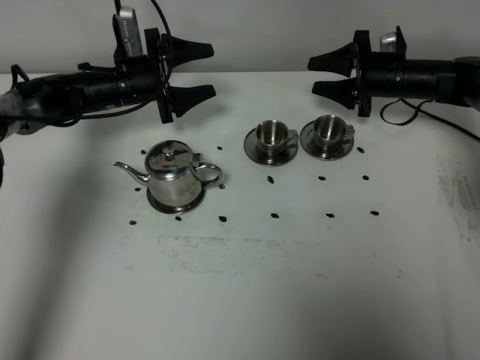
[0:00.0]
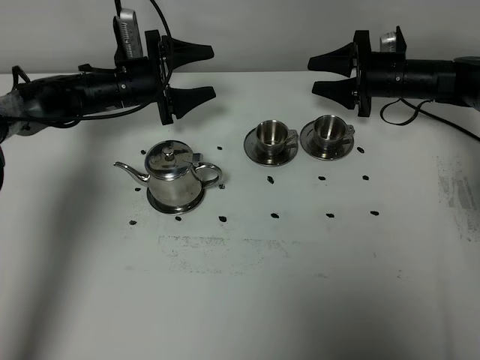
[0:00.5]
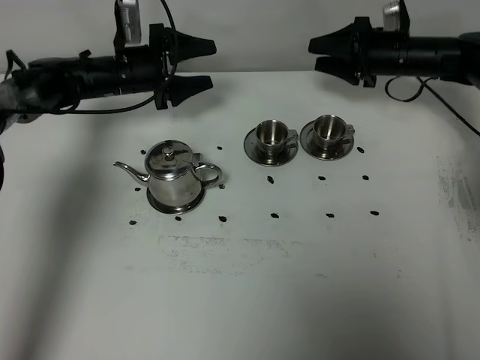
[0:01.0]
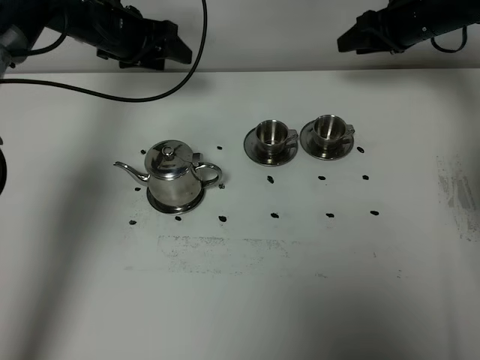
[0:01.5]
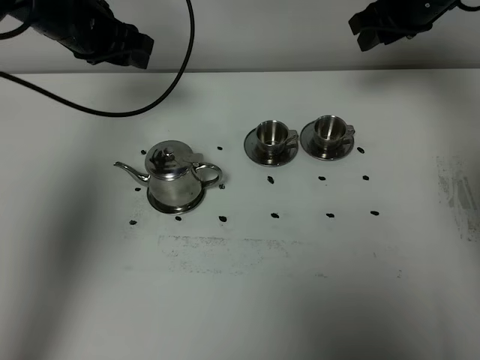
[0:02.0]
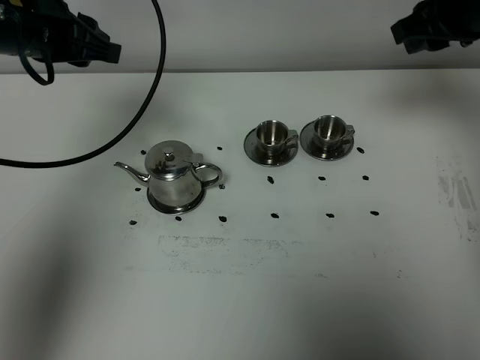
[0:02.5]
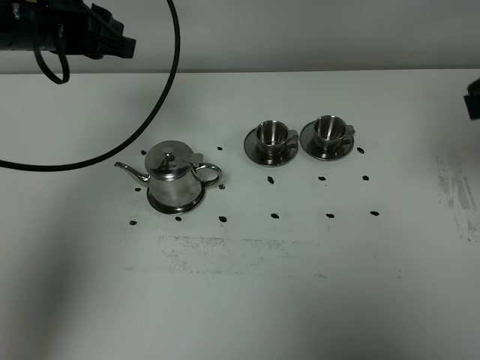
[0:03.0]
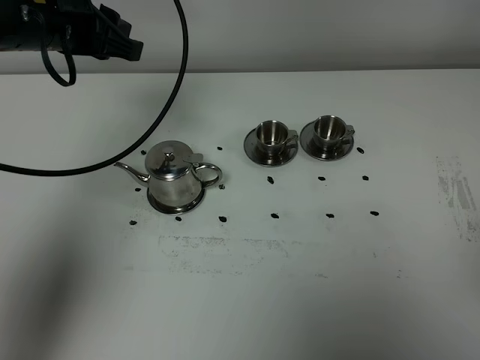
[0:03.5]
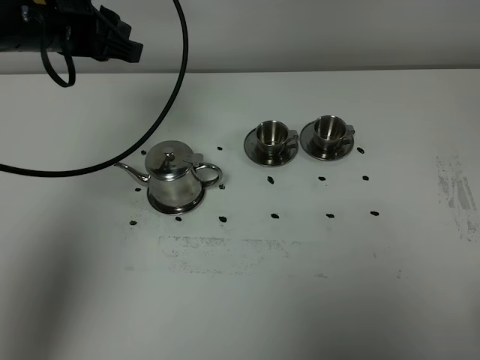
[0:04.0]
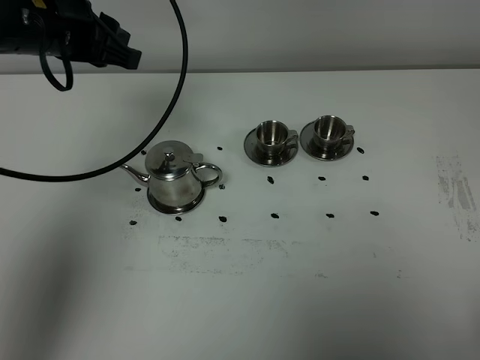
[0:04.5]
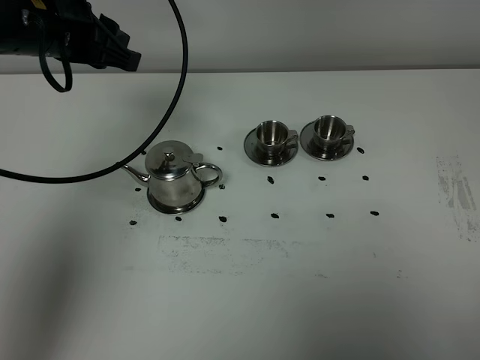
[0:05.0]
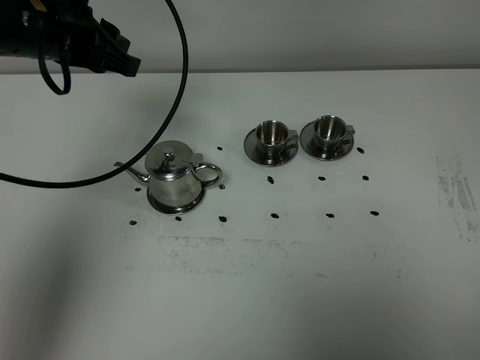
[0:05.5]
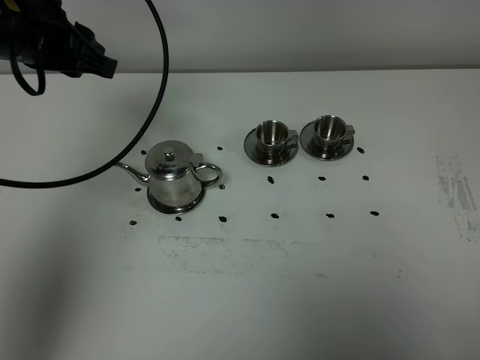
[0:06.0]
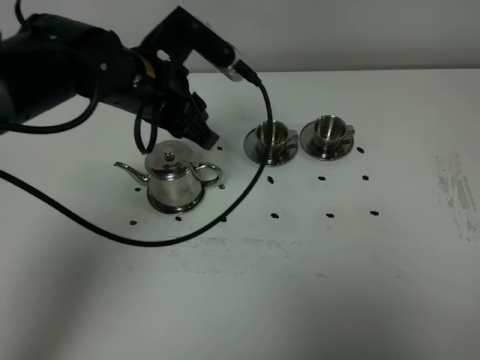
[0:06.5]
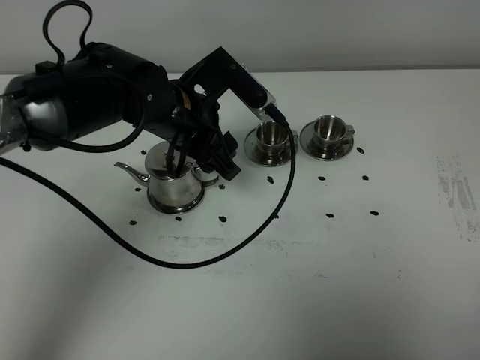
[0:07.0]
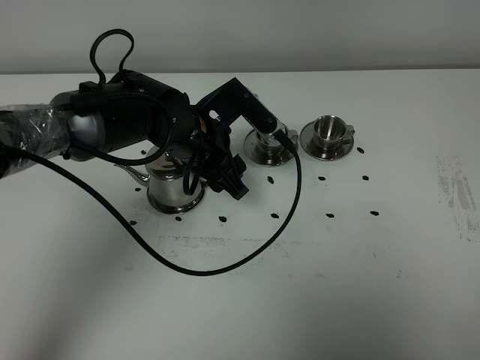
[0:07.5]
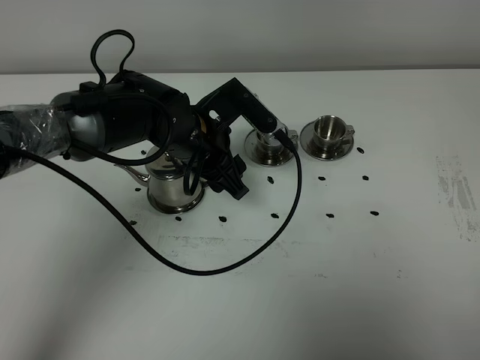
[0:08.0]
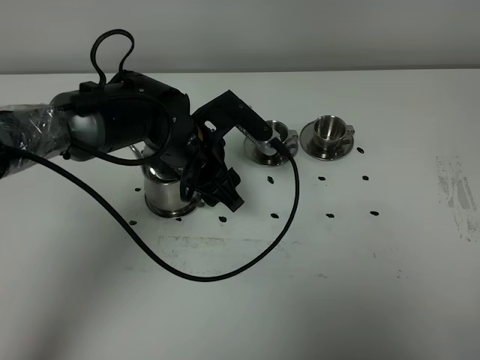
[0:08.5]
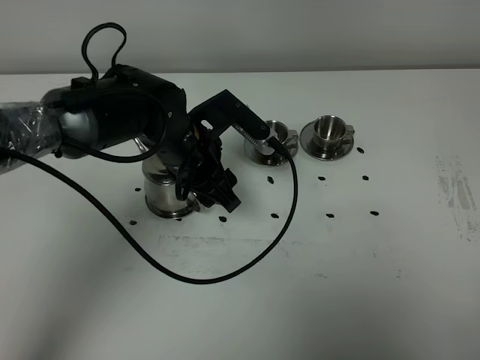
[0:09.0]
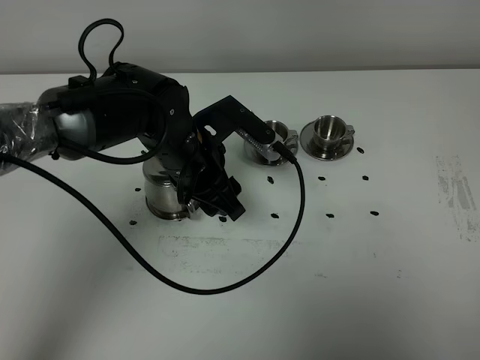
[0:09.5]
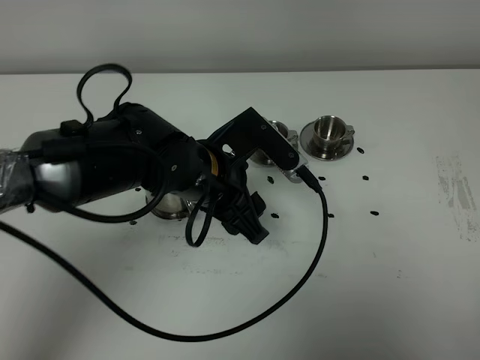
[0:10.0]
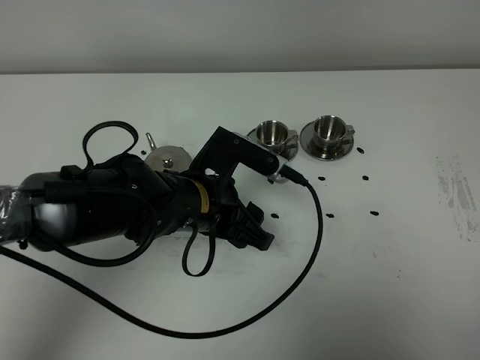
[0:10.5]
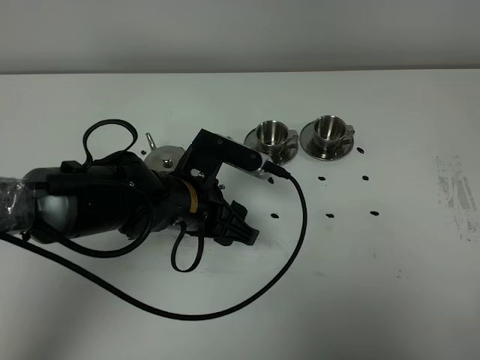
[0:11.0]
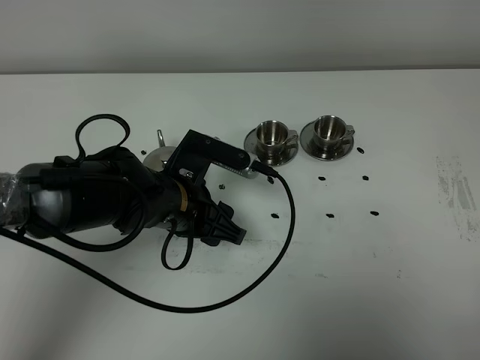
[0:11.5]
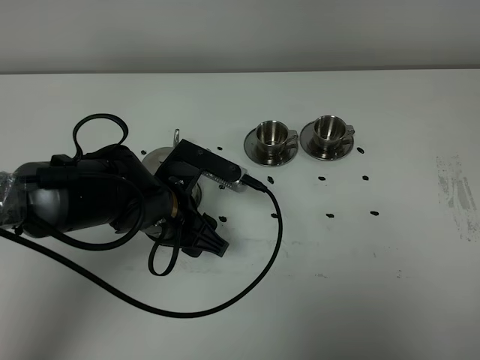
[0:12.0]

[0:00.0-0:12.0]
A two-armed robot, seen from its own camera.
Task of the whole recording: grasp the stainless steel teapot and pour the tea into the two stainless steel teacups one by one, put the stainless steel teapot back in its original place.
0:00.0 to 0:02.0: Both grippers travel together upward, approximately 15 cm. The left gripper closes up. The right gripper closes up.
0:02.0 to 0:04.0: The left gripper is displaced backward and upward by about 10 cm. Meanwhile the right gripper heads backward, covering about 50 cm.
0:04.0 to 0:06.0: The grippers stay close to where they were, moving slightly.
0:06.0 to 0:08.0: The left gripper moves downward and to the right, approximately 20 cm, and opens up.
0:08.0 to 0:10.0: The left gripper shifts approximately 10 cm backward.
0:10.0 to 0:12.0: The left gripper heads downward, covering roughly 5 cm.

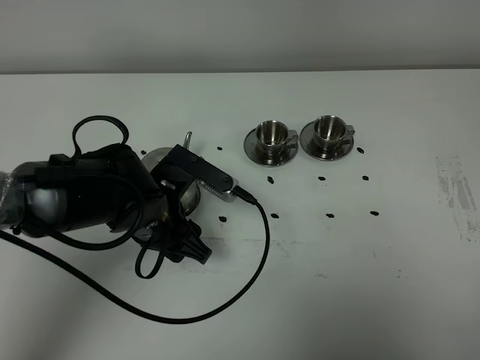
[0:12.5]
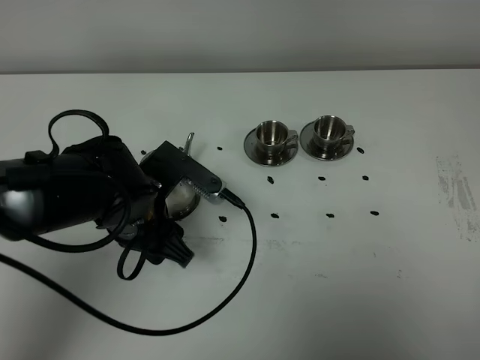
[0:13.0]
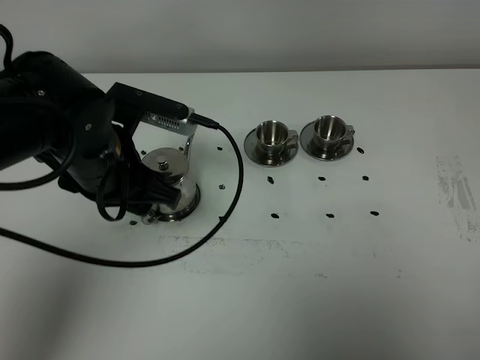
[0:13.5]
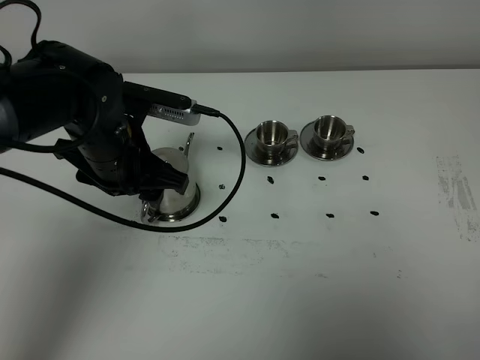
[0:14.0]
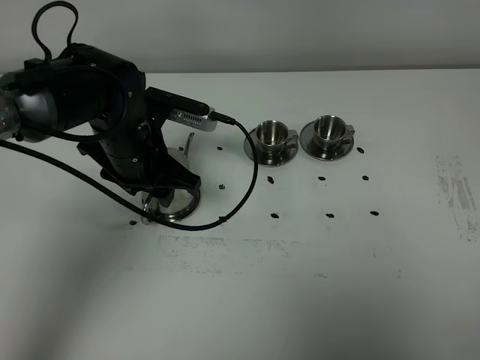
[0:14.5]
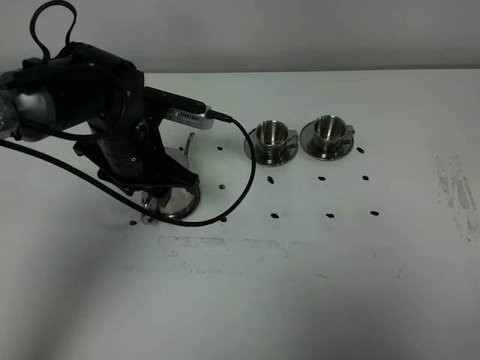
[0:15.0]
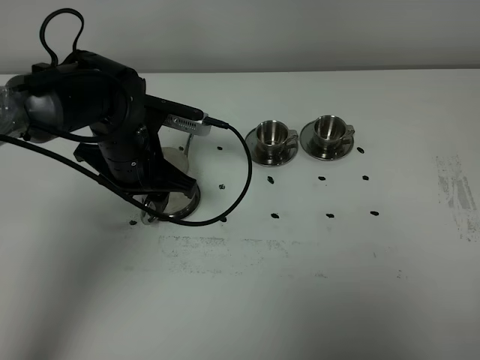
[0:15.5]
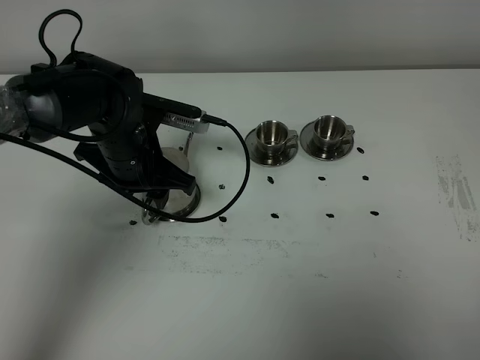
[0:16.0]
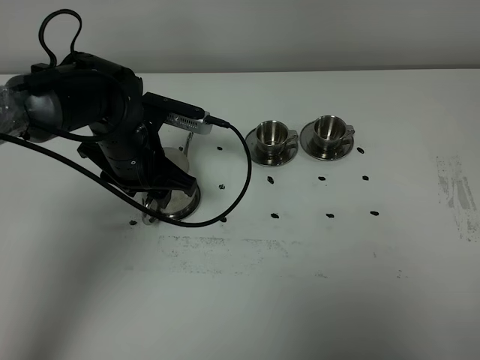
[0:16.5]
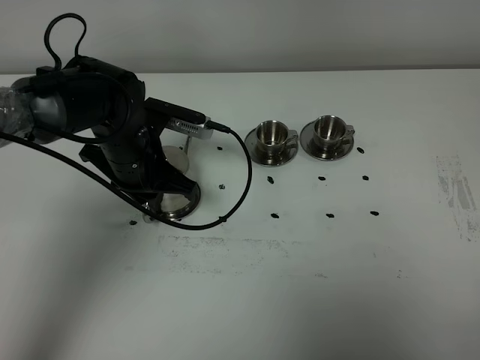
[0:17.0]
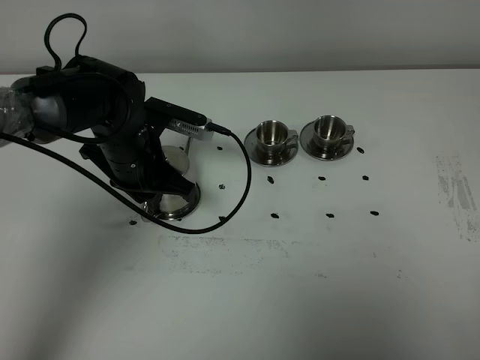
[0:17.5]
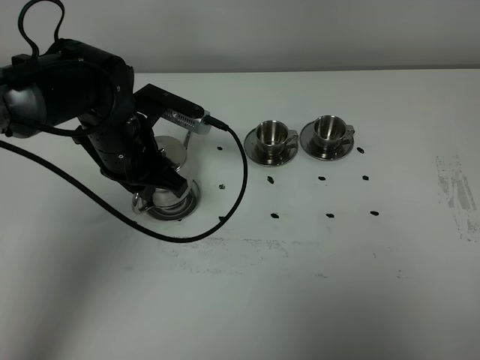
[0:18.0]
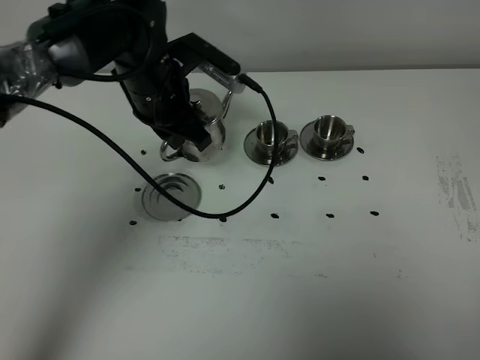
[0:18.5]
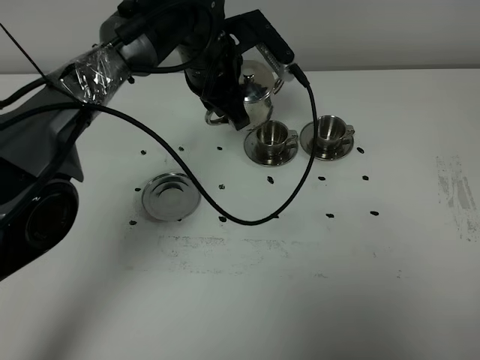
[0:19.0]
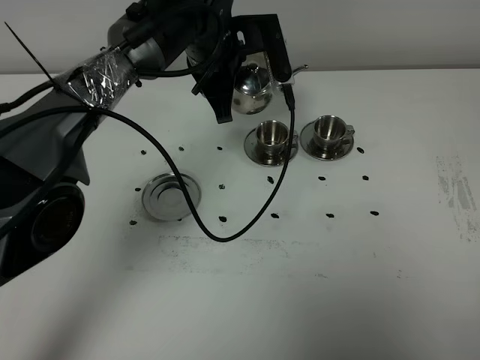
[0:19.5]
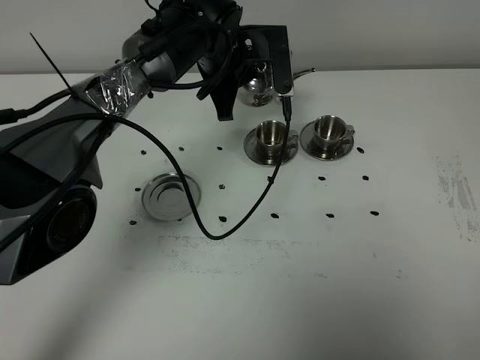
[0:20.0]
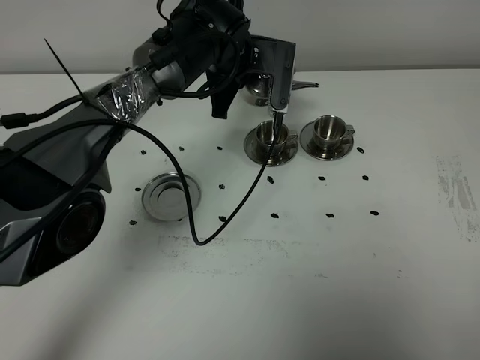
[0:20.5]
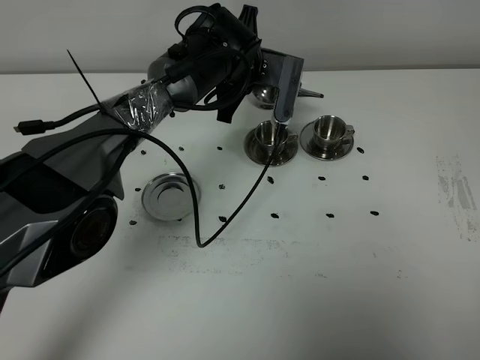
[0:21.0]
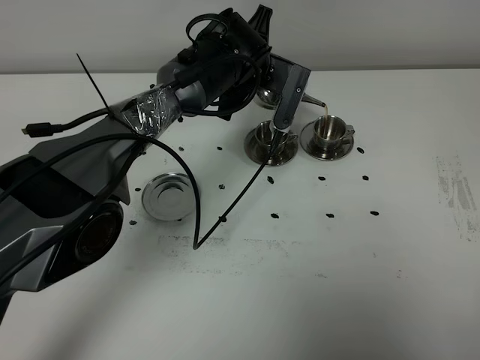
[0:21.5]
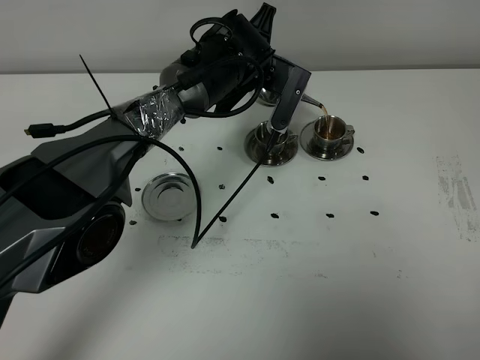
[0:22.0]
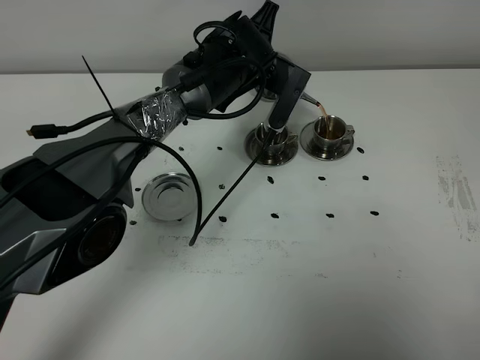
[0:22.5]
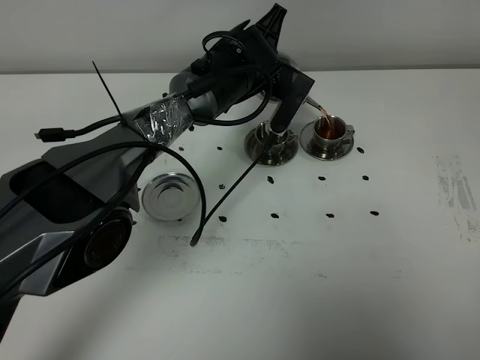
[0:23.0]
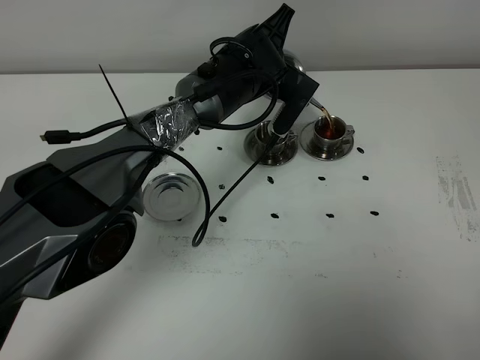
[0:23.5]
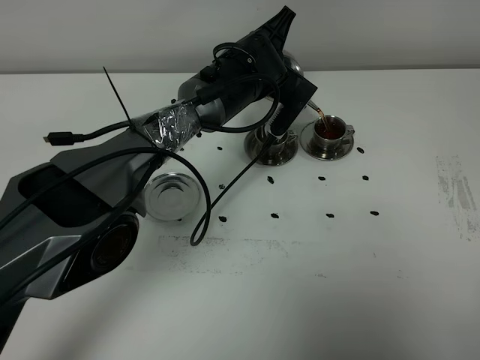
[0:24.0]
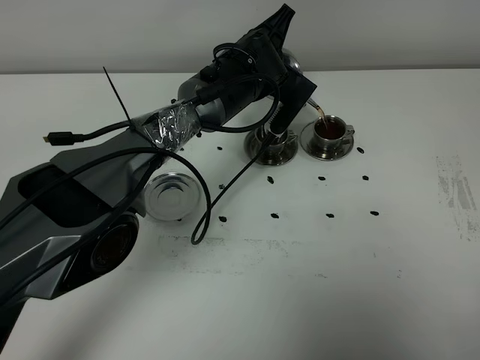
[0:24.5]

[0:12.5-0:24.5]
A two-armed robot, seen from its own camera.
Task of the whole recording: grasp the stainless steel teapot and pour the tea into the two stainless steel teacups one by one, put the stainless steel teapot back in its original place.
Step, 0:12.5 to 0:18.0: Pick up the teapot with the left gripper.
0:12.5 to 0:14.5: The left gripper moves forward, approximately 10 cm.
0:14.5 to 0:16.5: There are only small adjustments of the grippers.
0:16.5 to 0:18.5: The left gripper heads upward and forward, covering approximately 10 cm, and closes up.
0:18.5 to 0:20.5: The left gripper is displaced to the right and forward by about 10 cm.
0:22.5 to 0:24.5: The grippers make only small movements.

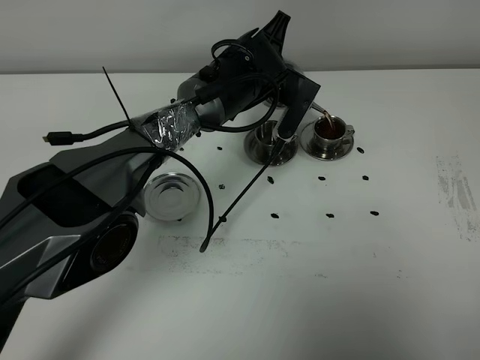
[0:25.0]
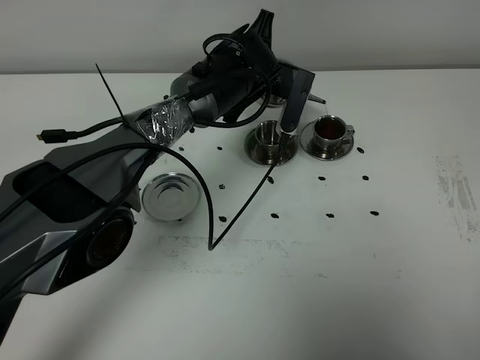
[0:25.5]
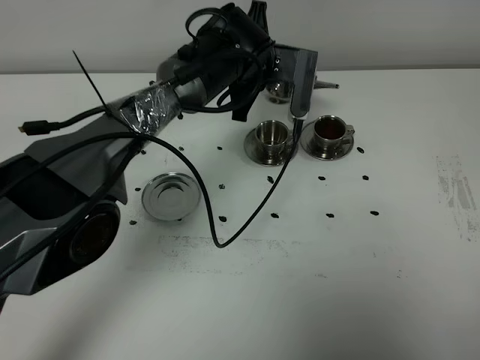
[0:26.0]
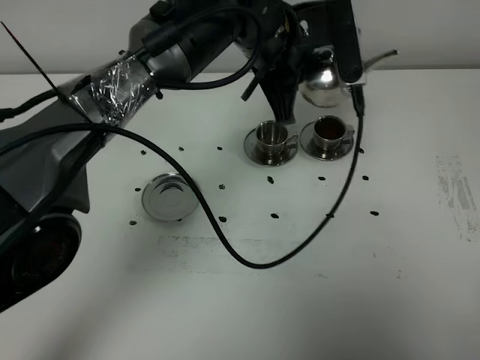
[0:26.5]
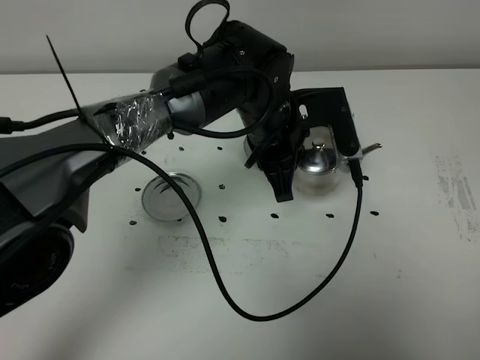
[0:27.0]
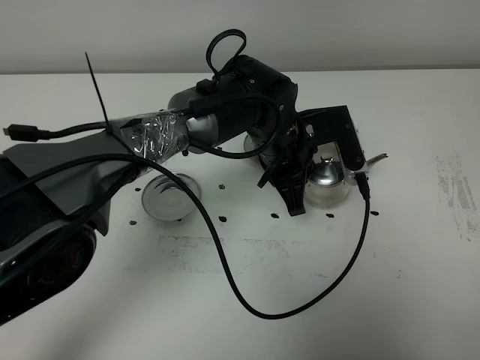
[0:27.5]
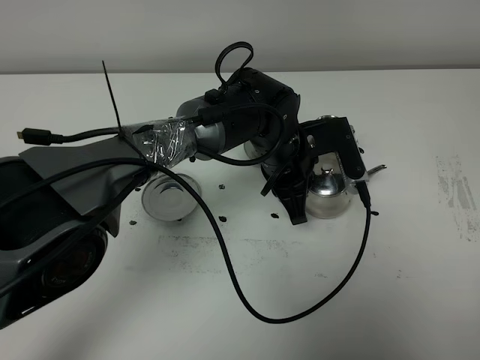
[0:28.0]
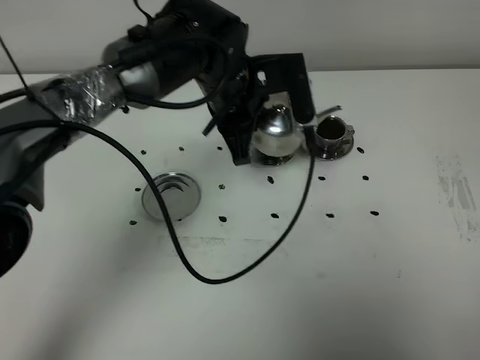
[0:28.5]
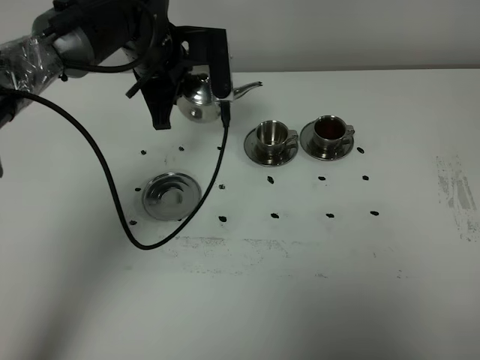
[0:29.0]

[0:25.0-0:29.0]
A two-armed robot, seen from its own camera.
Task of the whole recording: grasp the stainless steel teapot and pour the tea into the two stainless steel teacups one by one, put the stainless steel teapot back in its original place.
0:25.0 to 0:27.0: The left gripper shifts roughly 10 cm backward.
0:27.0 to 0:29.0: The left gripper is displaced to the left and forward by approximately 15 cm.
